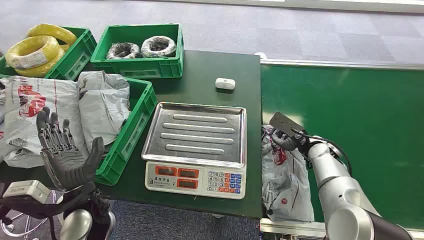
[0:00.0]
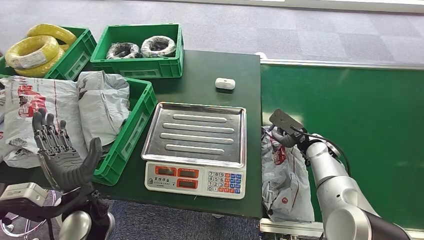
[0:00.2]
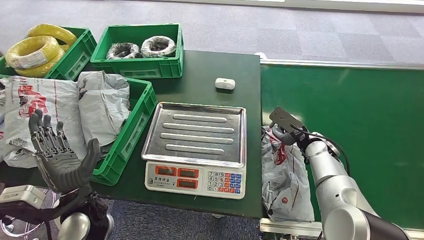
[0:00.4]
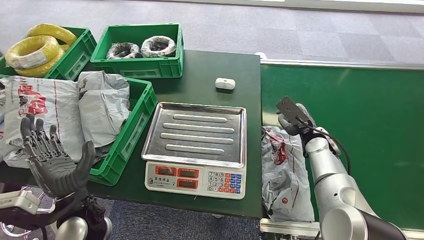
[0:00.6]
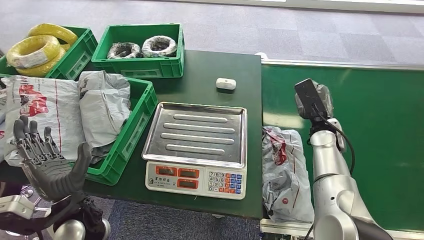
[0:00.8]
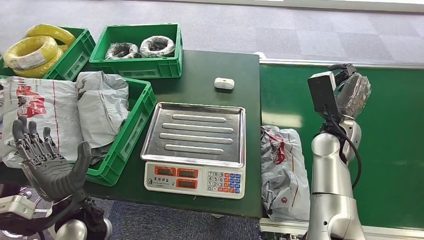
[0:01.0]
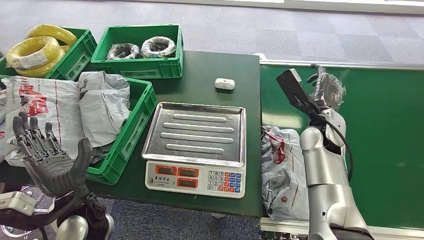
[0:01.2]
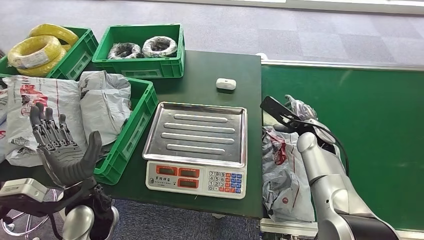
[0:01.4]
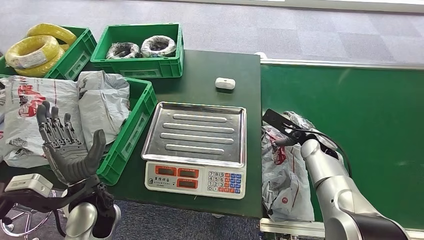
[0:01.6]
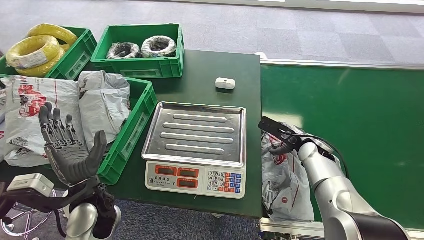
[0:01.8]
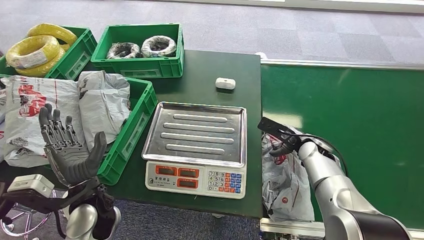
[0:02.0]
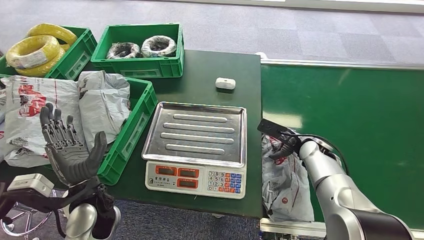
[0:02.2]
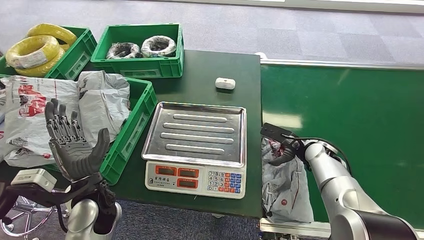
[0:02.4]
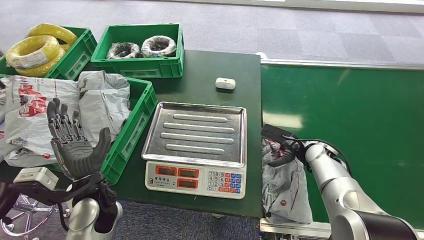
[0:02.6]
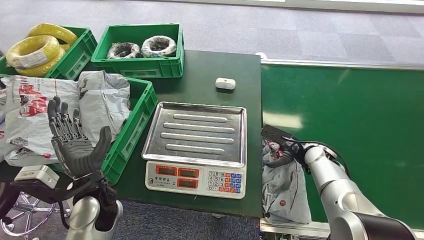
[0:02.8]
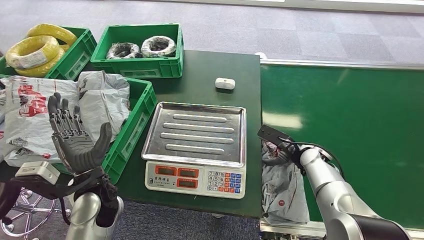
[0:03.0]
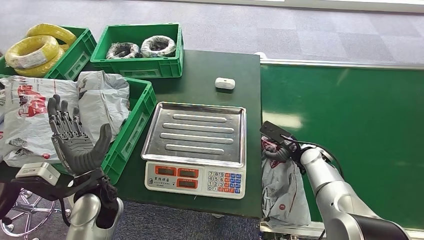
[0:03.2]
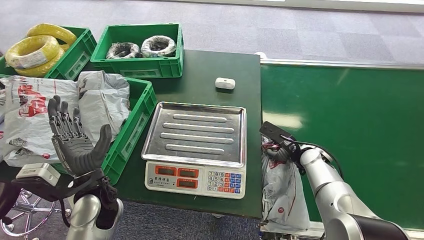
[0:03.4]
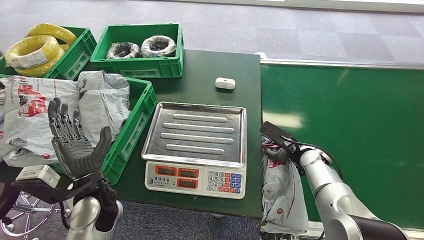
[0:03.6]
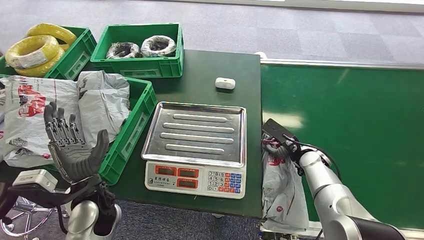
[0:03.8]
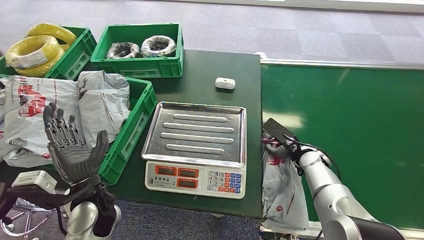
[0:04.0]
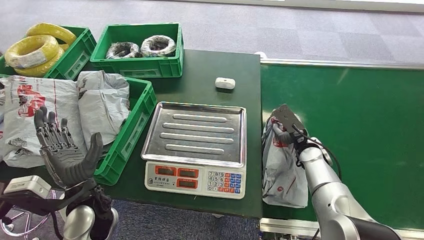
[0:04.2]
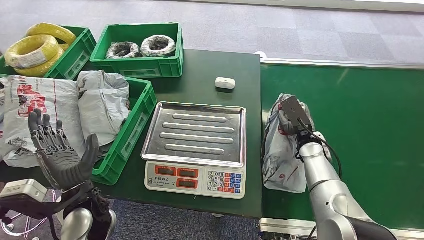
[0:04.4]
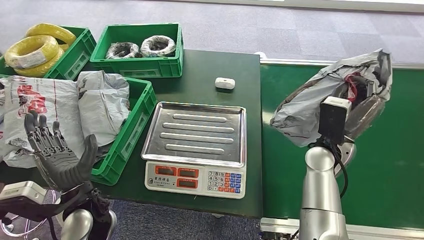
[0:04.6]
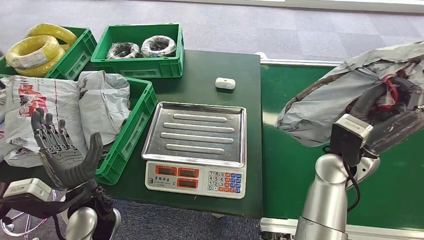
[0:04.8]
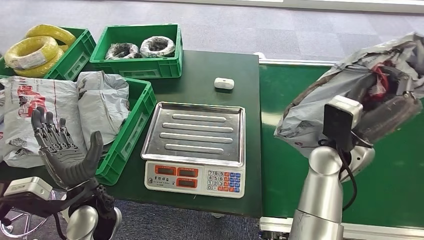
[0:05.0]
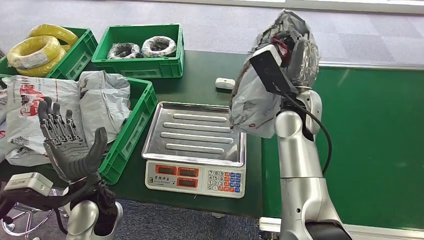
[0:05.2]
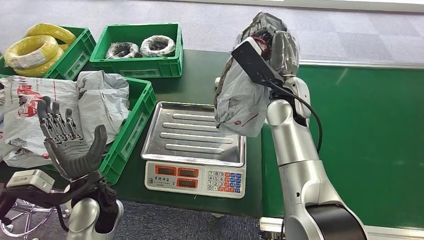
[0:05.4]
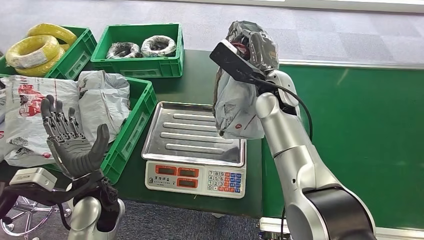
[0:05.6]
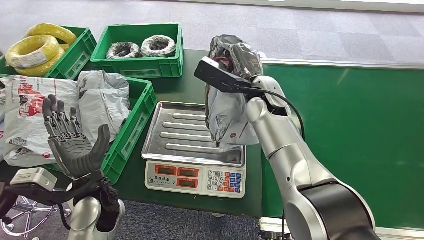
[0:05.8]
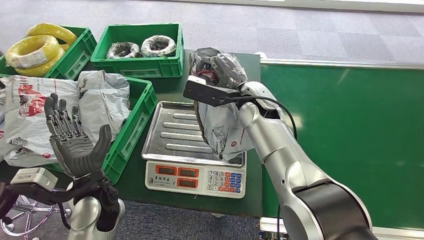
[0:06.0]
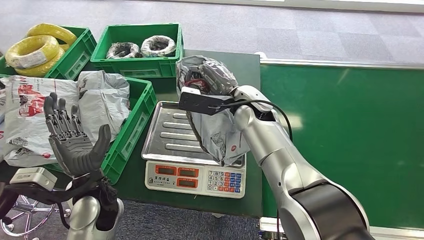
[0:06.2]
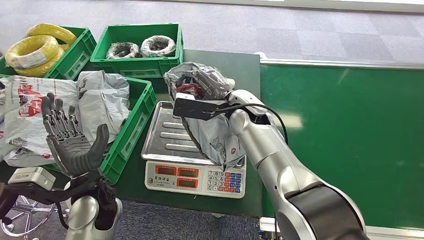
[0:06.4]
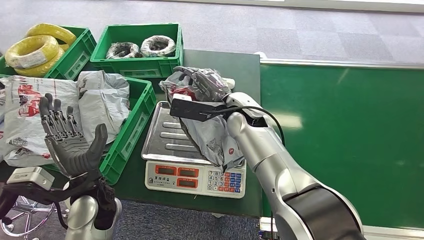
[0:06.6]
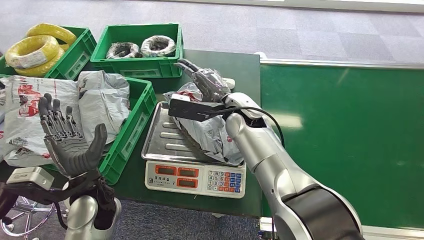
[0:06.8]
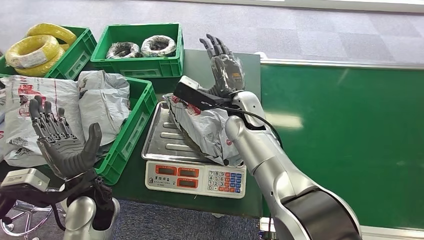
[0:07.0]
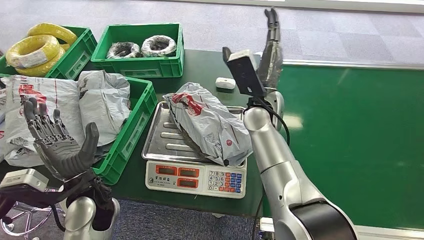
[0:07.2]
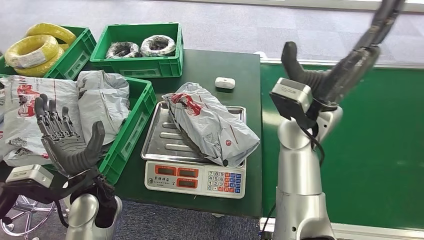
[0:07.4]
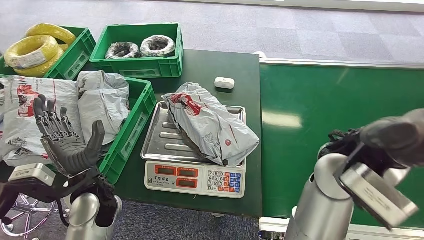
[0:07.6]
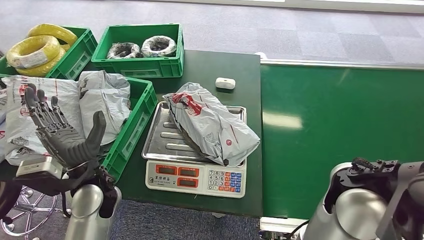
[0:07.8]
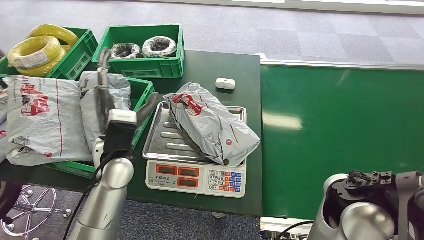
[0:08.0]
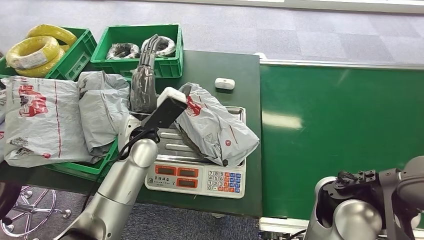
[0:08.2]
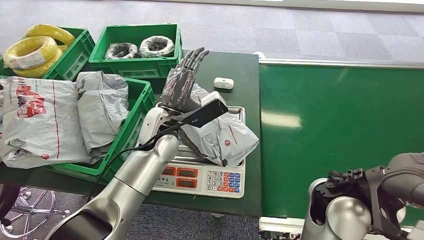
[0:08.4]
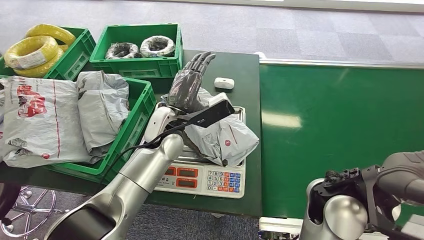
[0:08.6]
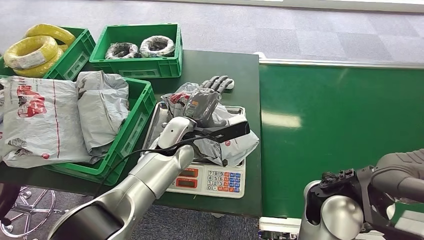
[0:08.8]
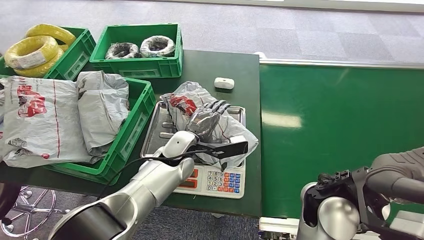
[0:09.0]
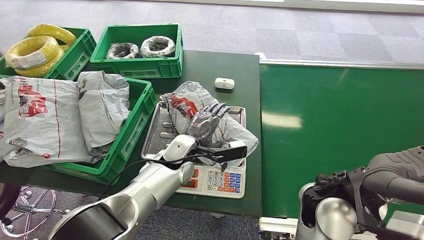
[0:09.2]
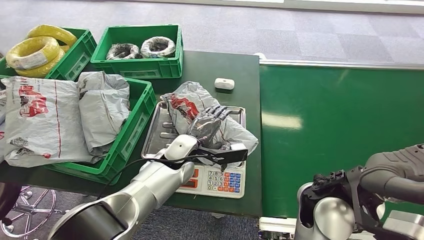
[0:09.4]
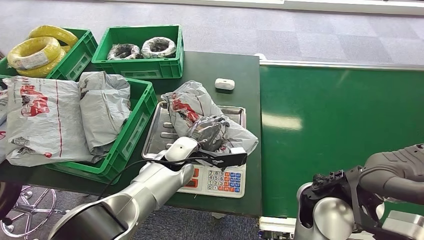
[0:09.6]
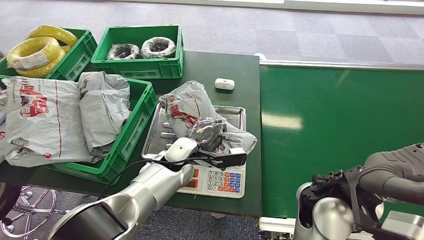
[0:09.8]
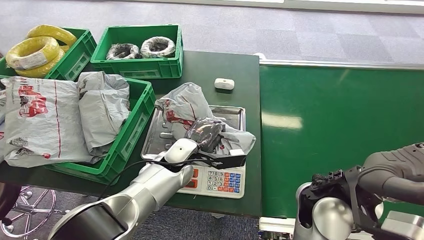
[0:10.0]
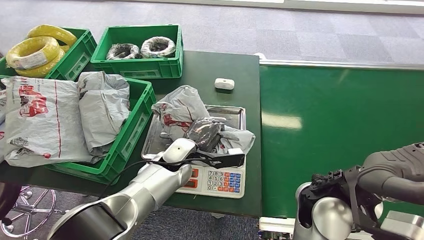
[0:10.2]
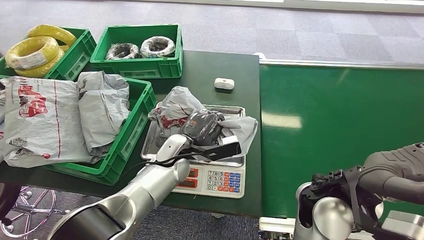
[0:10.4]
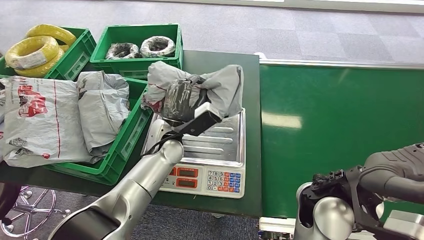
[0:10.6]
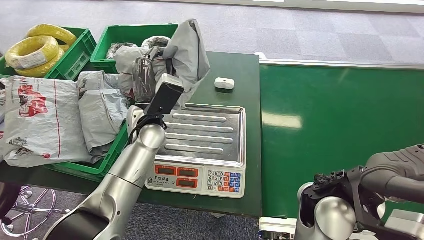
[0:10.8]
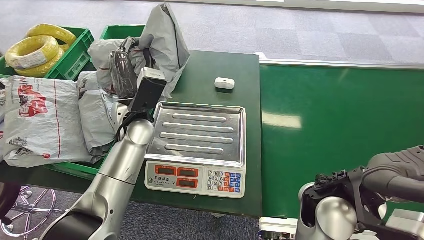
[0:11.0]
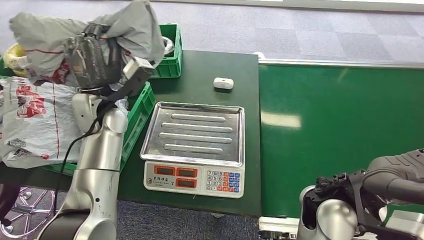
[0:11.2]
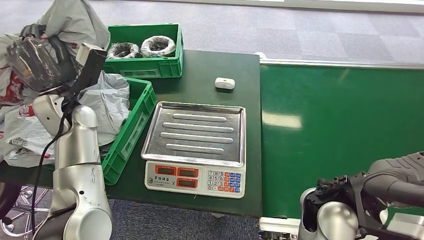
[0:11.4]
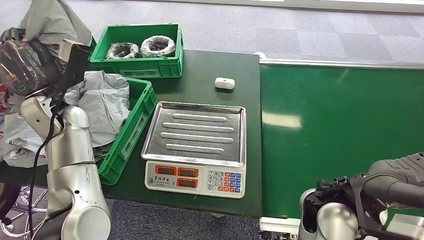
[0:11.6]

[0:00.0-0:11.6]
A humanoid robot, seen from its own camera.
Step, 0:00.0 to 0:04.8: Pick up the package from the conveyor belt.
Step, 0:05.2 to 0:07.6: Place the package onto the inbound machine.
Step, 0:07.8 to 0:11.0: Pick up the package from the inbound machine.
Step, 0:11.2 to 0:11.6: Place the package into the parcel locker.
0:01.4 to 0:02.8: The right hand heads downward, covering roughly 5 cm.
